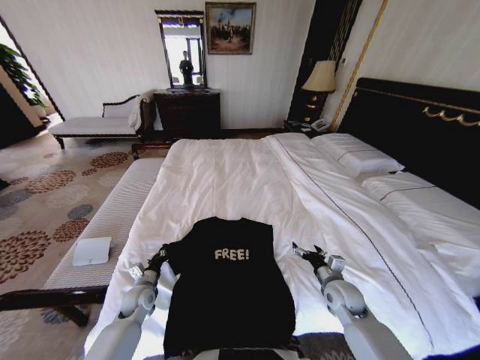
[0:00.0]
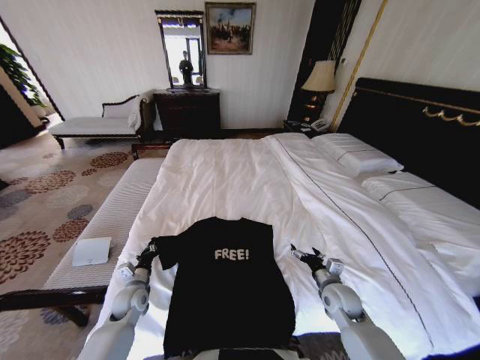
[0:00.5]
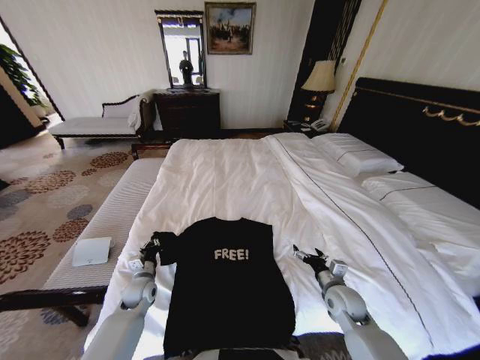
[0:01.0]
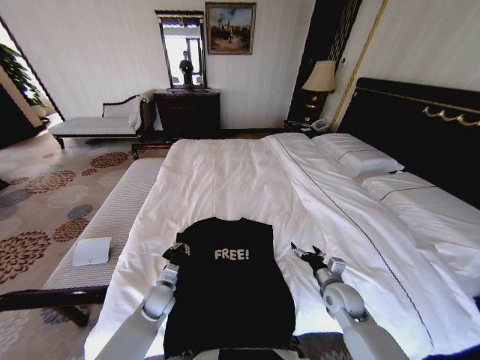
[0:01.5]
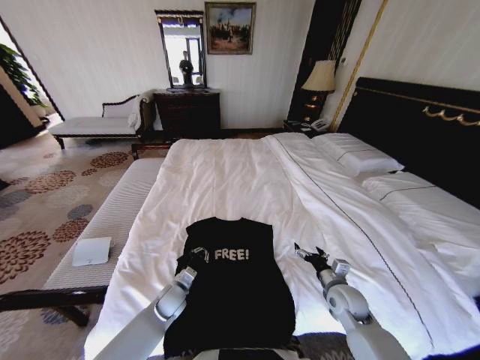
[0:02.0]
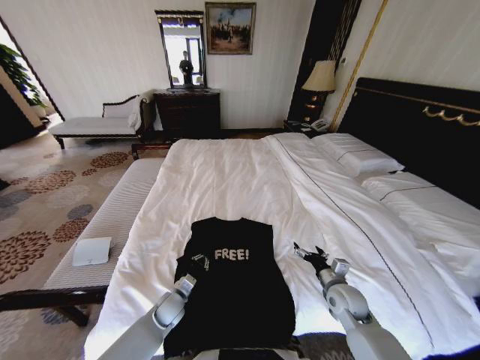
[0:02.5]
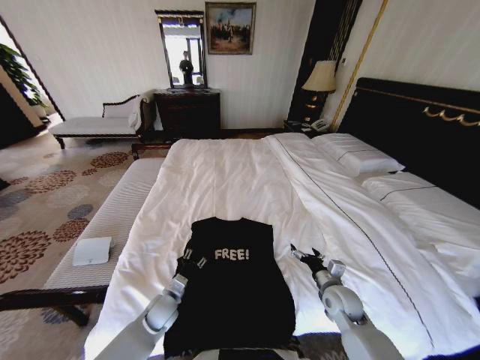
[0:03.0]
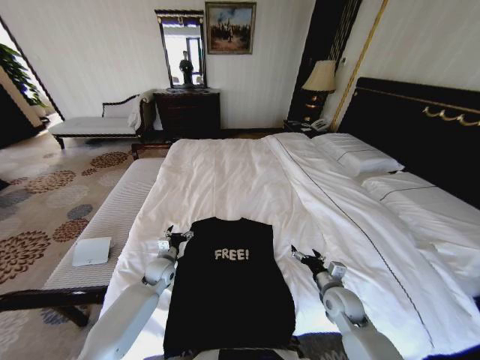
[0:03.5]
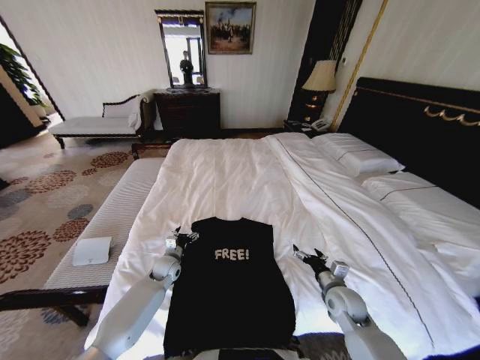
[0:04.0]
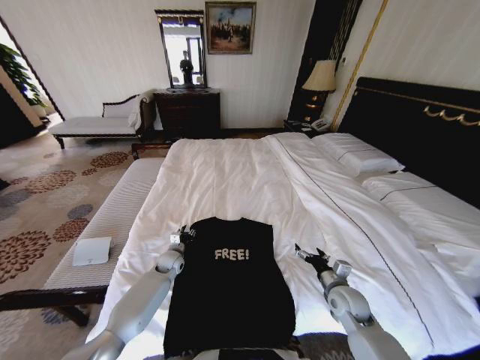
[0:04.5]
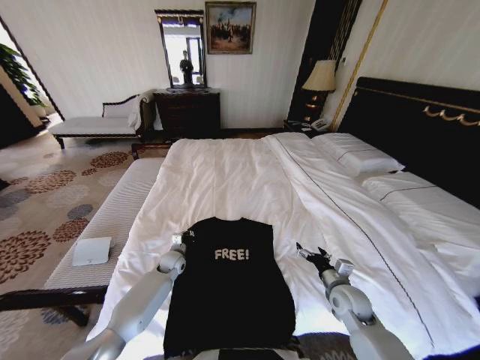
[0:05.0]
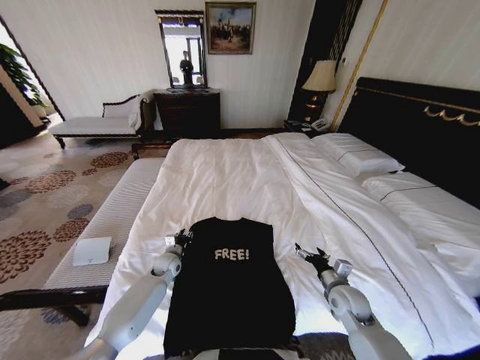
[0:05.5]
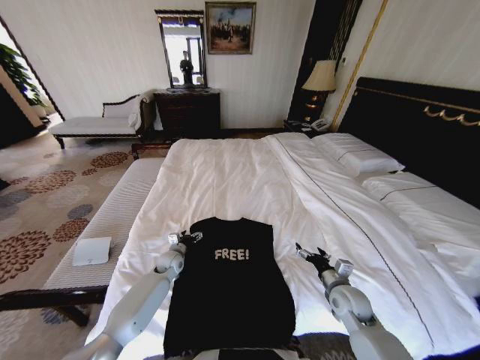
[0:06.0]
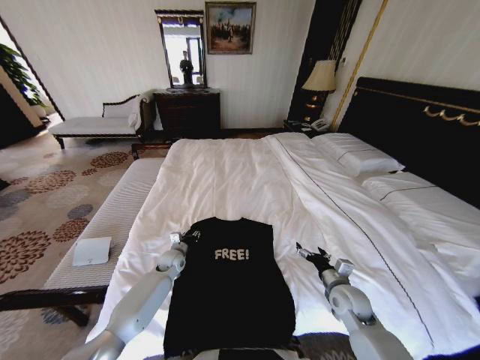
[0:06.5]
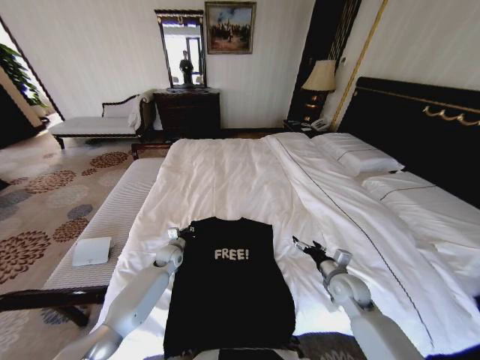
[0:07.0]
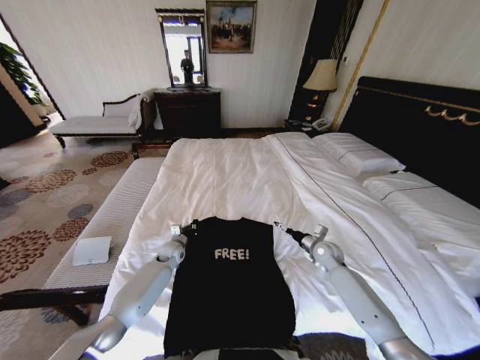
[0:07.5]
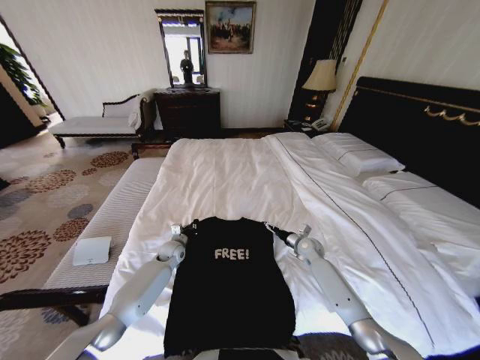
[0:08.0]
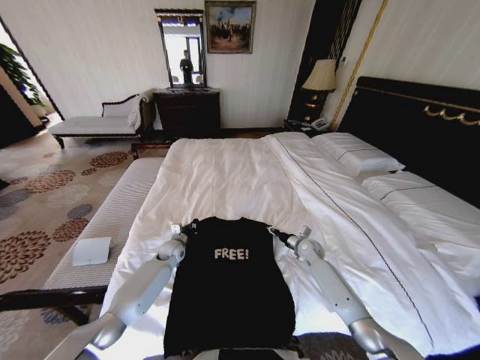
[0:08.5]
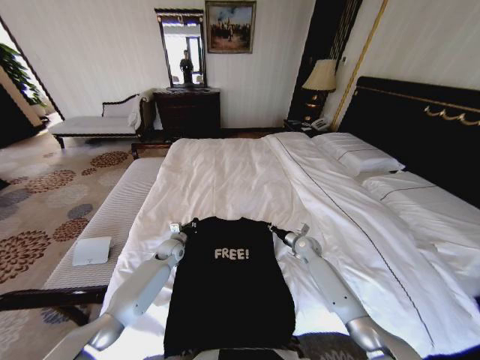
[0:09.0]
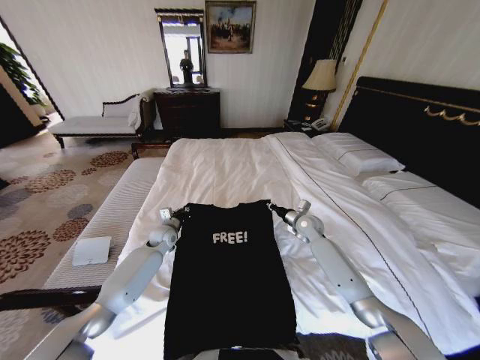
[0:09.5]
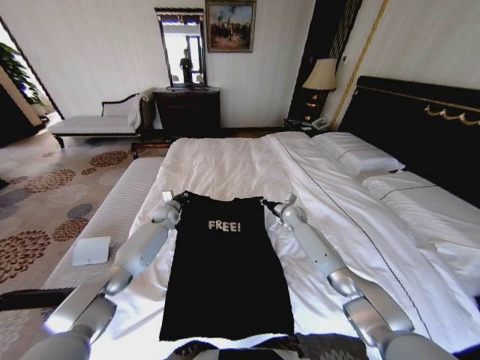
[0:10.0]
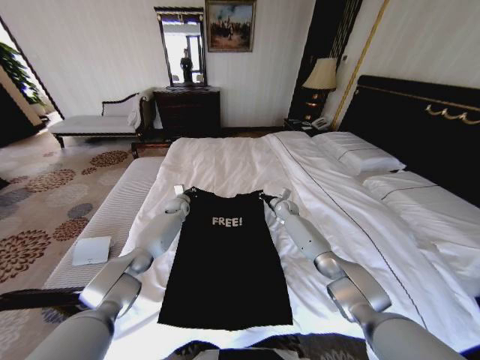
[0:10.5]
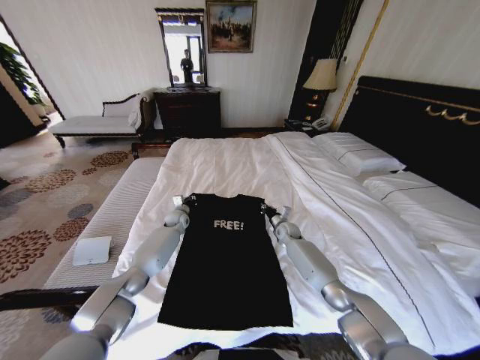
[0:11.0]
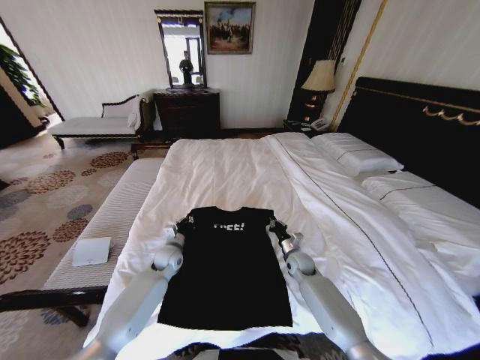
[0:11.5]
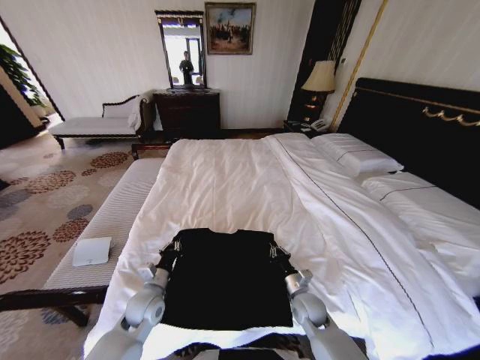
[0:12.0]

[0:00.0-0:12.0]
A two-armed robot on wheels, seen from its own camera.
Task of the whole recording: Fold the clothes on the bed.
0:00.0 to 0:02.0: The left gripper travels to the right by approximately 10 cm.
0:02.0 to 0:04.0: The left gripper moves forward, about 10 cm, and opens up.
0:04.0 to 0:06.0: The left gripper closes and opens again.
0:06.0 to 0:08.0: The right gripper shifts roughly 20 cm forward, while the left gripper closes its fingers.
0:08.0 to 0:10.0: Both grippers travel together forward and upward, about 15 cm. The right gripper closes.
0:10.0 to 0:12.0: The grippers both shift backward by about 30 cm.

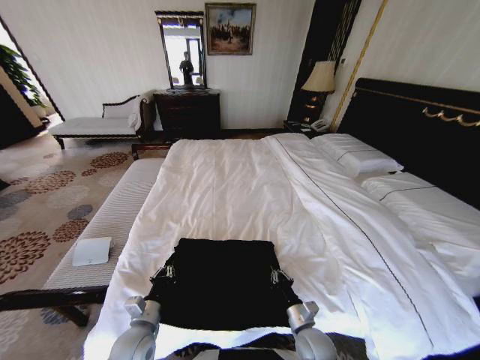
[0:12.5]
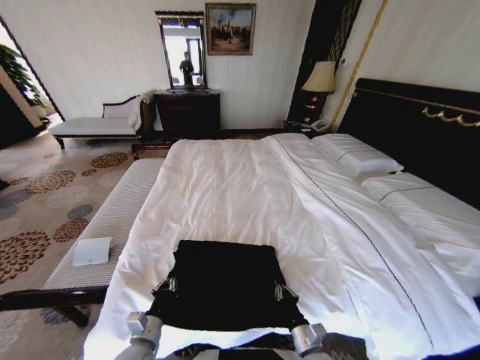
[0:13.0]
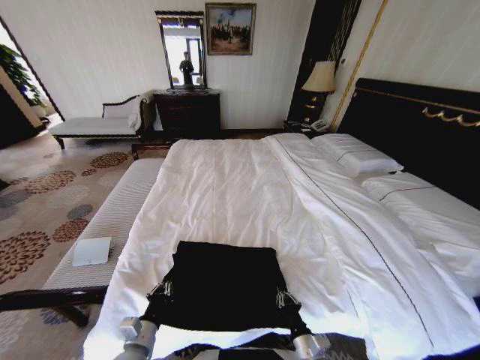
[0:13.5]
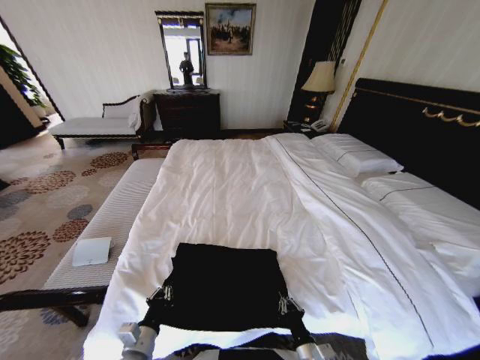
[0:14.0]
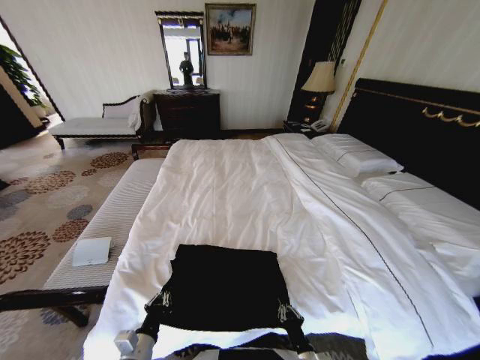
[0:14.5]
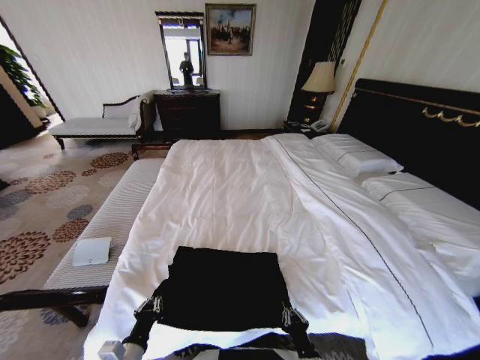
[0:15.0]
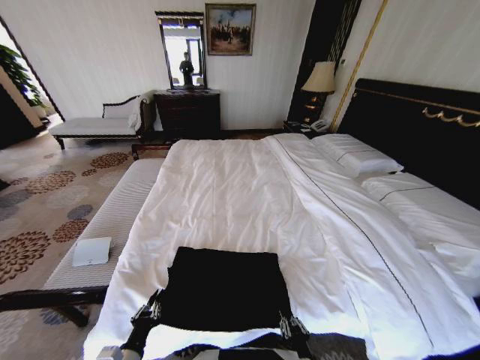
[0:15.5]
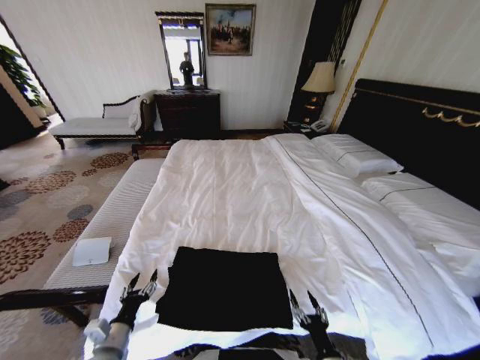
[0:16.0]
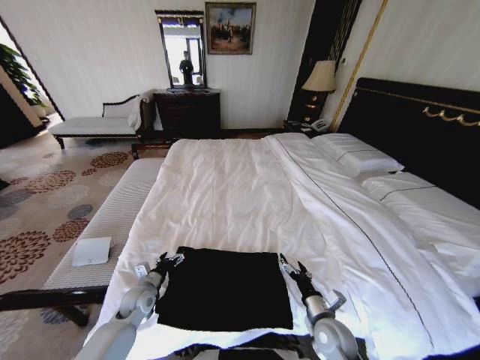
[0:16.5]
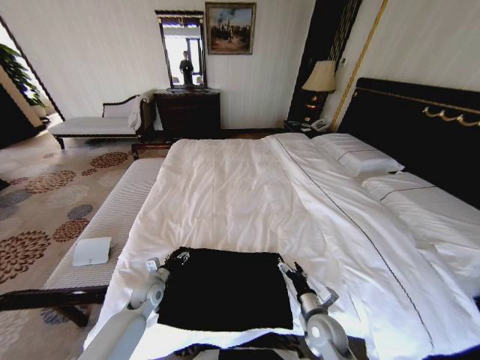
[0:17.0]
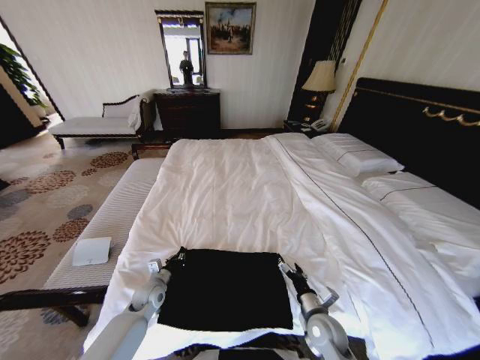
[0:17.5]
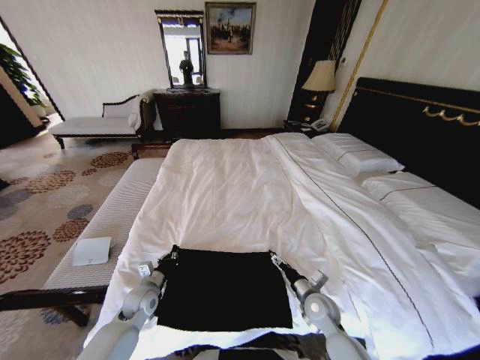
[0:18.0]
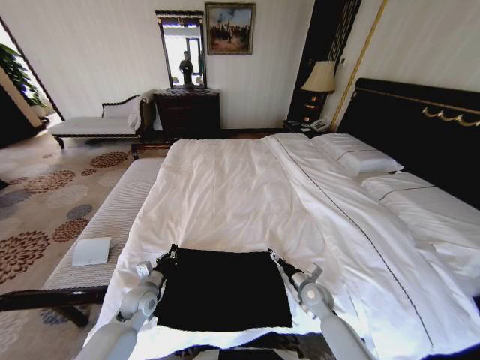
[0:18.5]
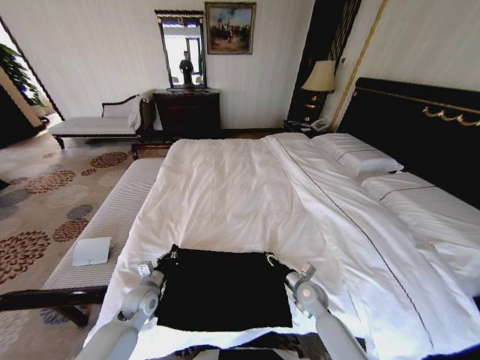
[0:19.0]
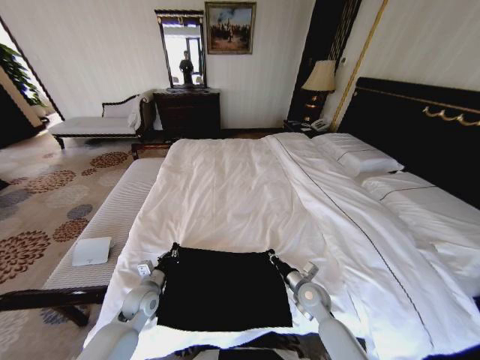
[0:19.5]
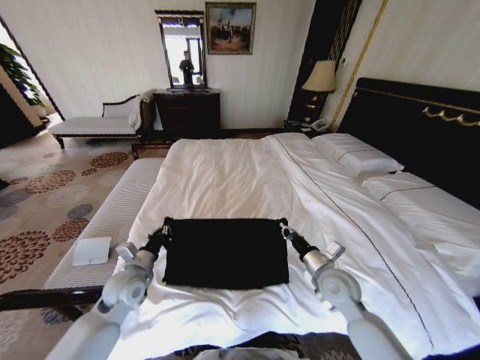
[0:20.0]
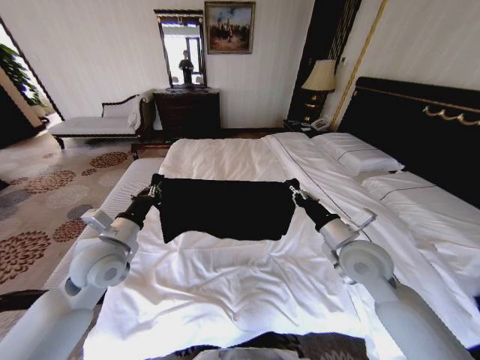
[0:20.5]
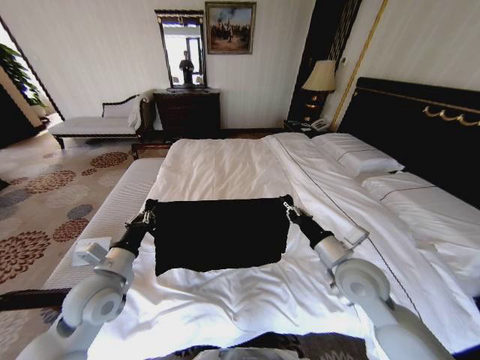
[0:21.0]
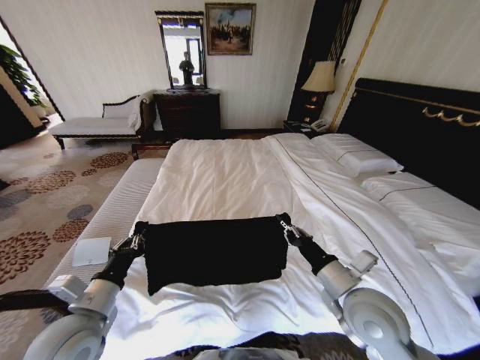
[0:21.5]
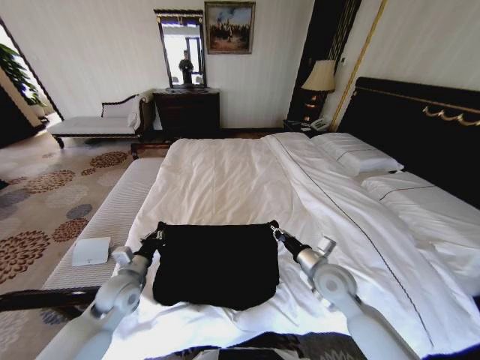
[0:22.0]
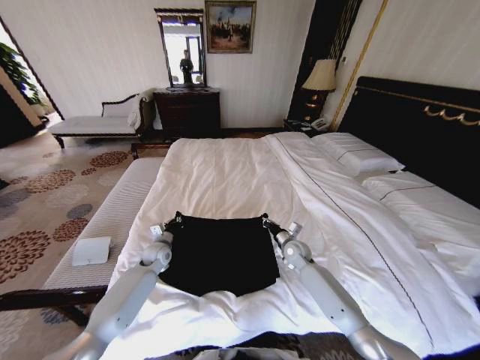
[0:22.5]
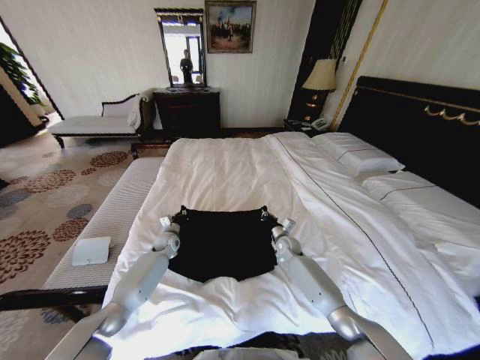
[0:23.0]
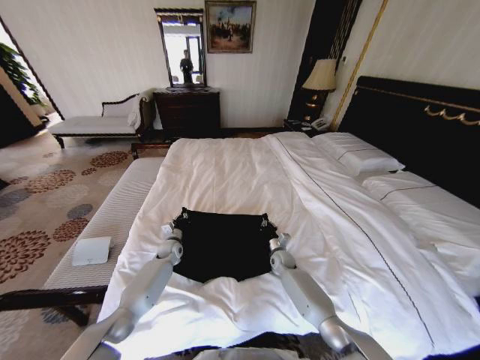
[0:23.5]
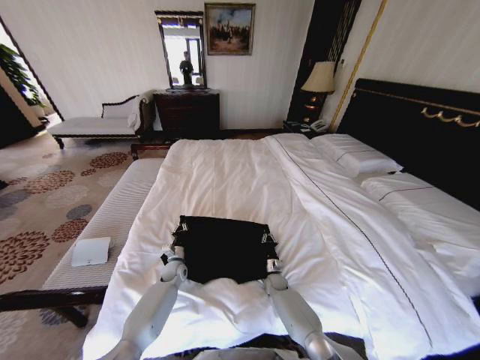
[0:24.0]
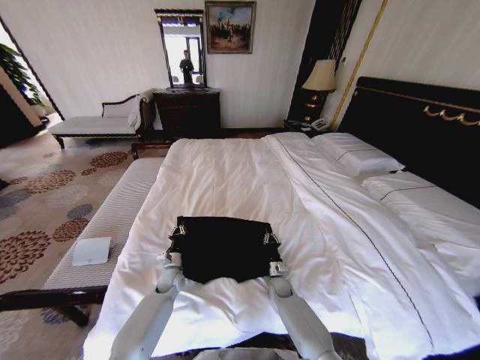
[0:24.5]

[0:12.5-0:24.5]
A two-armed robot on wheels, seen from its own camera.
Task of the whole recording: Fold the clothes on the bed.
0:12.5 to 0:14.5: The left gripper shifts about 5 cm backward. The right gripper heads backward, covering about 10 cm.
0:14.5 to 0:16.5: The right gripper goes some 15 cm forward, upward and to the right, and opens. Meanwhile the left gripper heads forward, covering about 20 cm, and opens its fingers.
0:16.5 to 0:18.5: The right gripper is displaced forward by about 10 cm. The left gripper closes up.
0:18.5 to 0:20.5: The grippers both shift upward by about 25 cm. The right gripper closes up.
0:20.5 to 0:22.5: The two grippers go roughly 25 cm downward and forward.
0:22.5 to 0:24.5: The right gripper shifts some 15 cm downward; the left gripper is displaced downward and backward by approximately 10 cm.

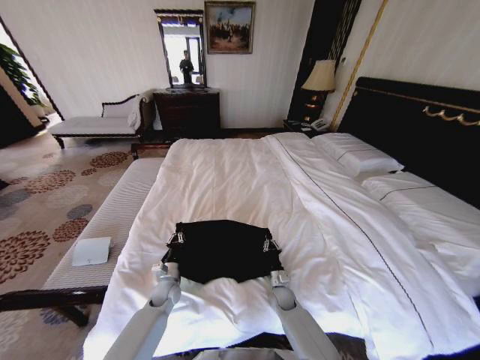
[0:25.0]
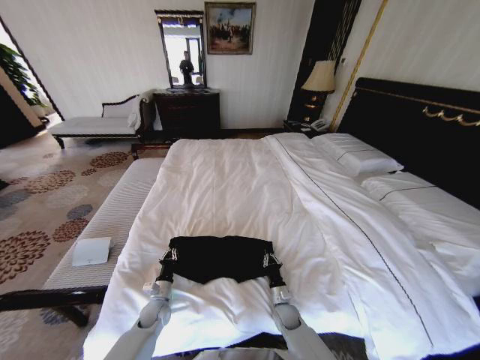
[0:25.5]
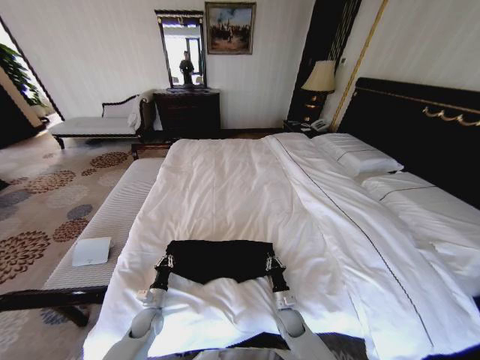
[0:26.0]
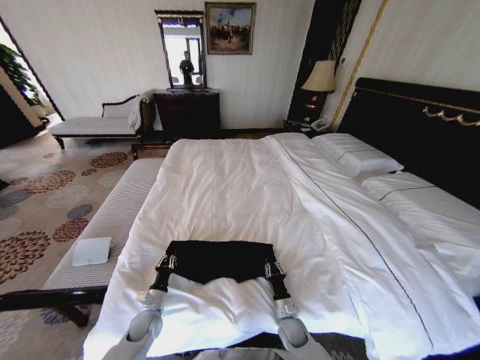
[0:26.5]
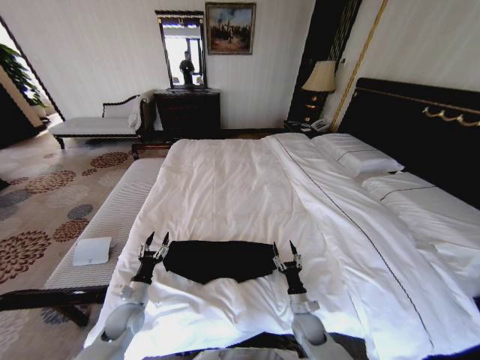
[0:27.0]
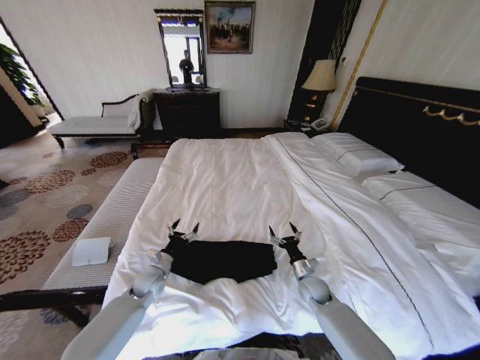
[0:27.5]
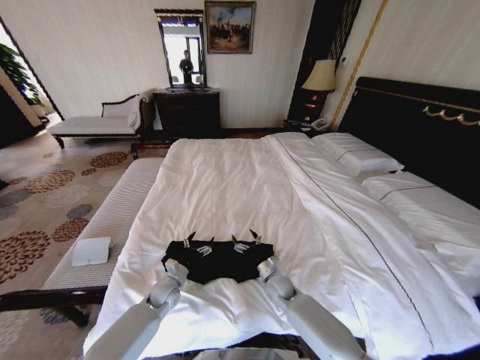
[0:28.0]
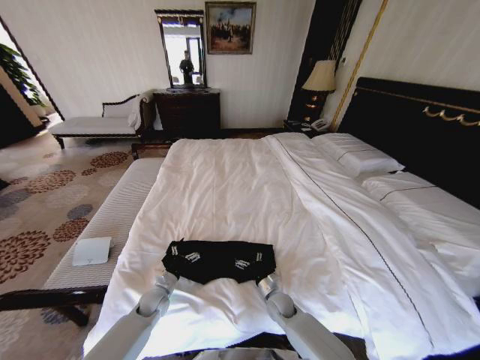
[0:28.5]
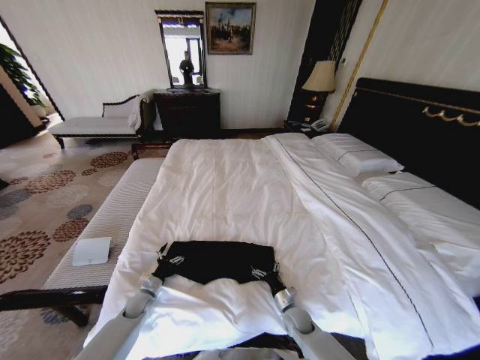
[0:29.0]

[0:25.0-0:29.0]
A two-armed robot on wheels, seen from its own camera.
Task of the whole recording: Fold the clothes on the bed.
0:25.0 to 0:27.0: The right gripper is displaced backward by about 10 cm, and opens its fingers, while the left gripper heads backward and to the left, covering some 10 cm, and opens up.
0:27.0 to 0:29.0: The left gripper goes about 10 cm downward and forward. Meanwhile the right gripper goes left and right, approximately 10 cm each way, reversing 2 times, and opens up.
